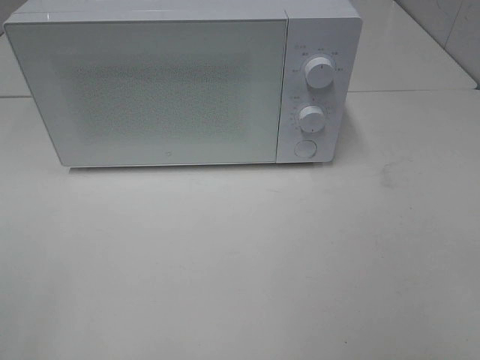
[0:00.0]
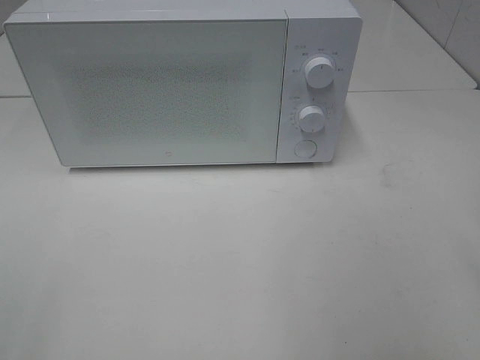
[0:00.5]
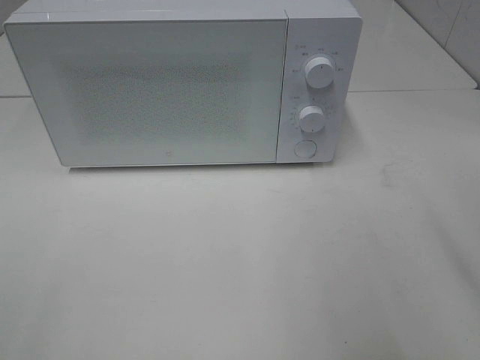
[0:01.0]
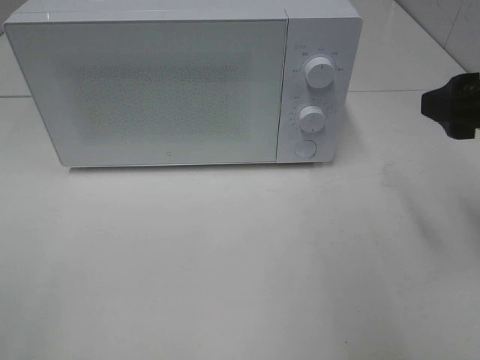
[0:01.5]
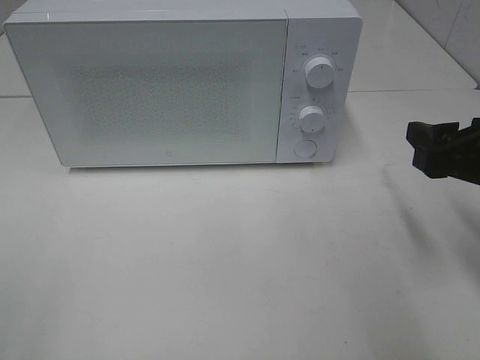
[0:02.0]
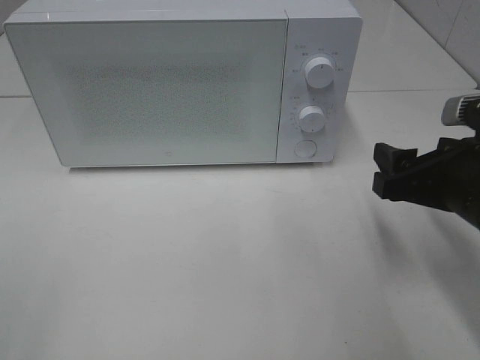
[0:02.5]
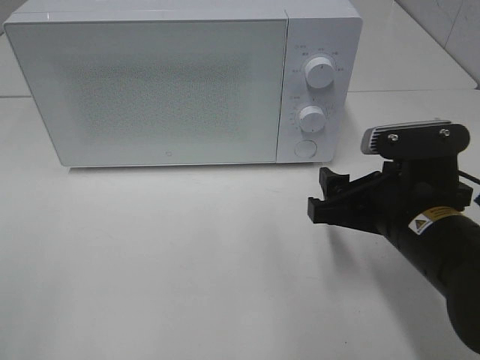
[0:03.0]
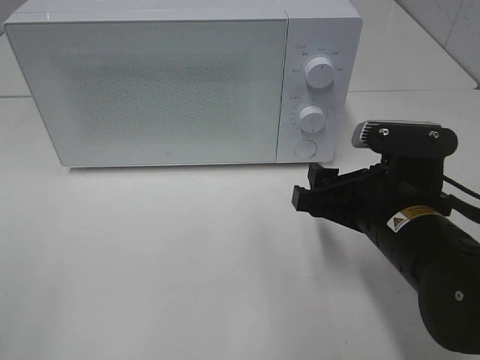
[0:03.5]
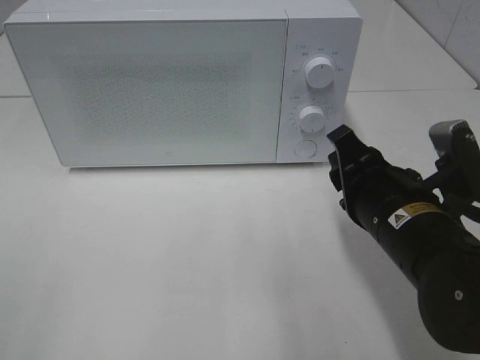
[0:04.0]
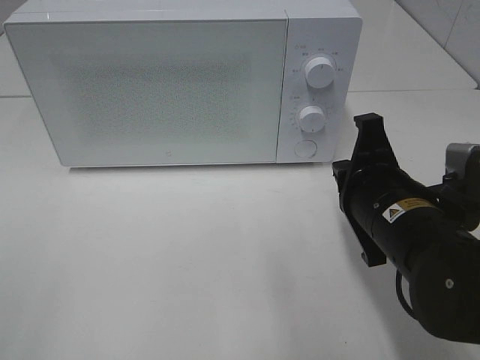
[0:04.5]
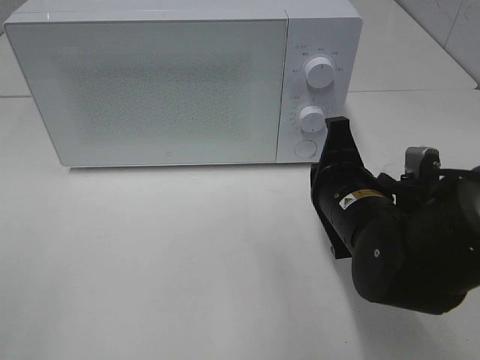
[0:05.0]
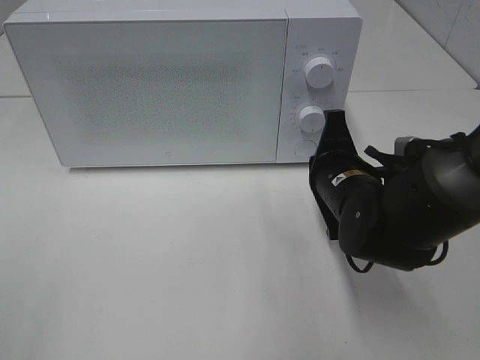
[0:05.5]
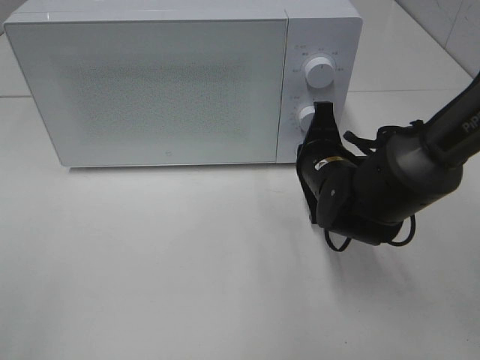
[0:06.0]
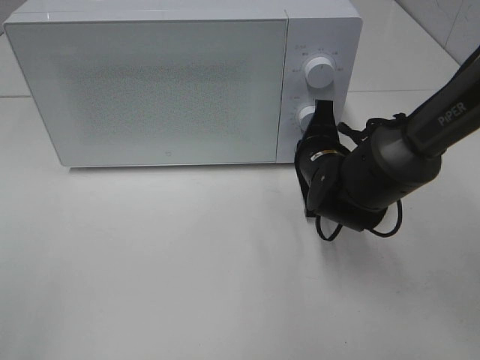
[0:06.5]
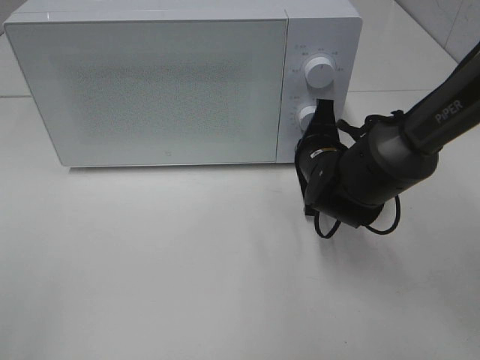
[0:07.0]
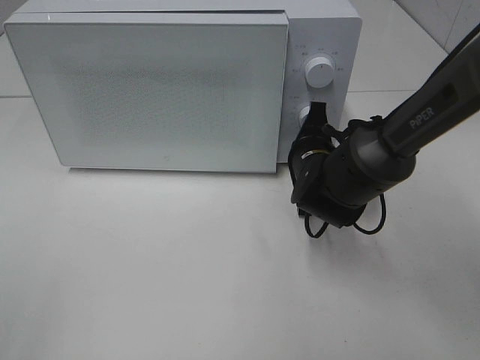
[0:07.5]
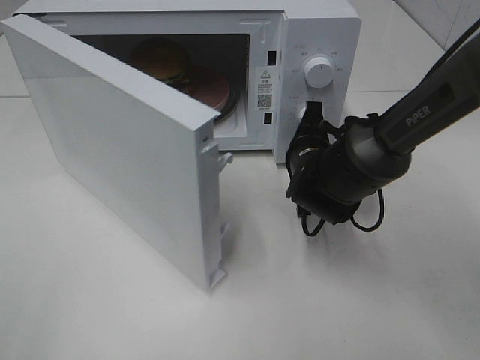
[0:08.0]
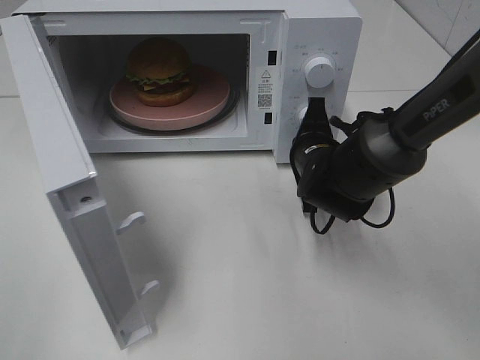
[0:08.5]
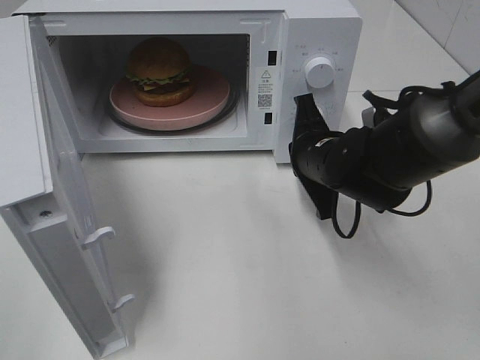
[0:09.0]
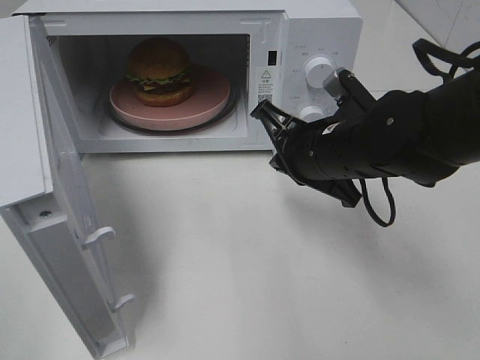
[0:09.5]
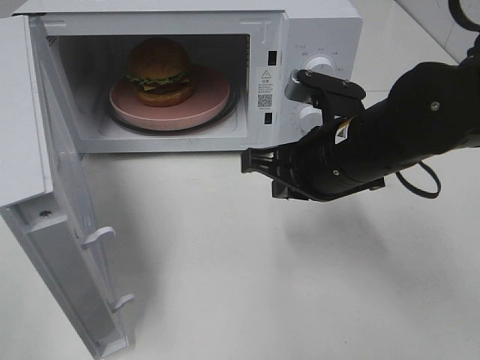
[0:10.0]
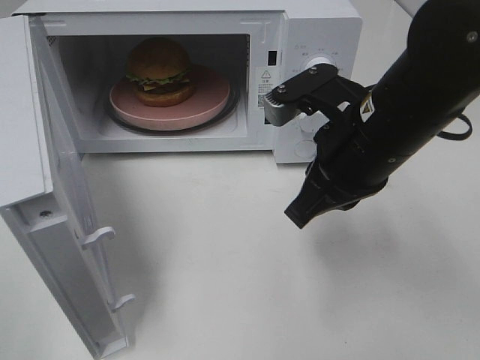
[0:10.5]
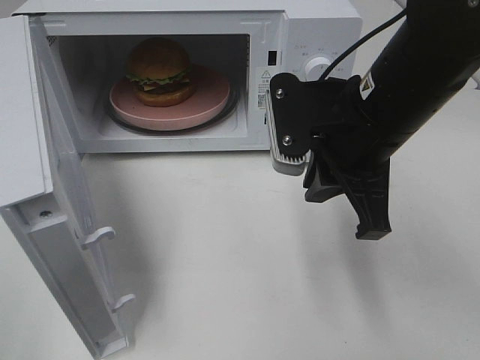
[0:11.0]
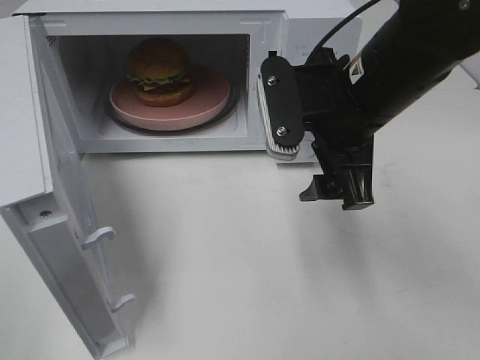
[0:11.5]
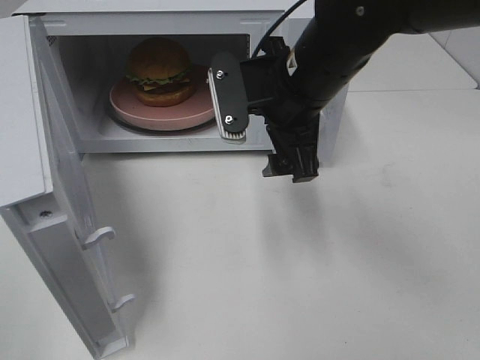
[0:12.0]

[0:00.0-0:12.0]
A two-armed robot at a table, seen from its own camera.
Task of the whole recording: Heat the burger.
Step, 0:00.0 to 0:08.5: Right hand: press the switch.
0:00.0 to 0:02.0: The right gripper travels forward and downward by some 25 cm.
0:02.0 to 0:04.0: The right gripper goes about 10 cm to the left, and closes up.
0:04.0 to 0:06.0: The right gripper moves forward and downward, about 10 cm, and closes its fingers.
0:08.0 to 0:10.0: The right gripper moves upward and backward, roughly 15 cm.
0:10.0 to 0:12.0: The right gripper moves forward, roughly 5 cm, and opens up.

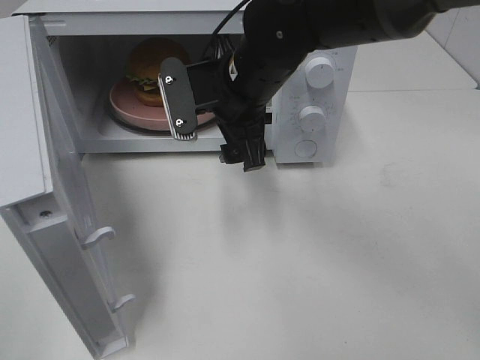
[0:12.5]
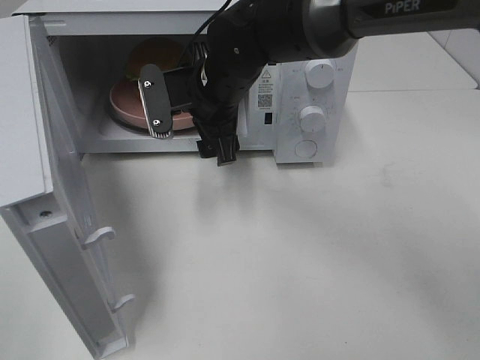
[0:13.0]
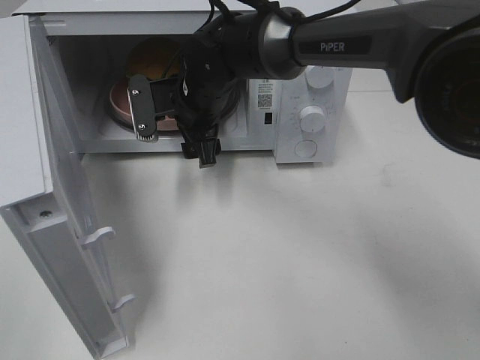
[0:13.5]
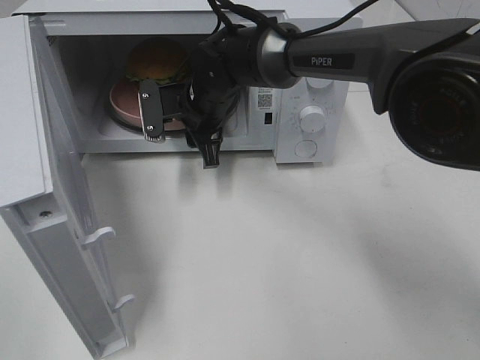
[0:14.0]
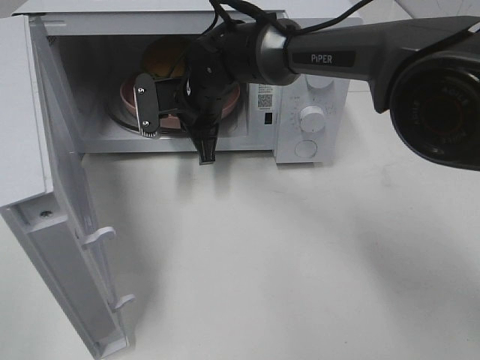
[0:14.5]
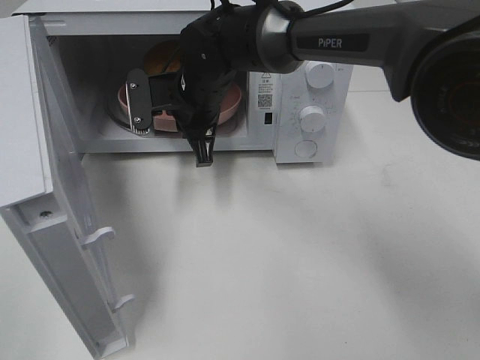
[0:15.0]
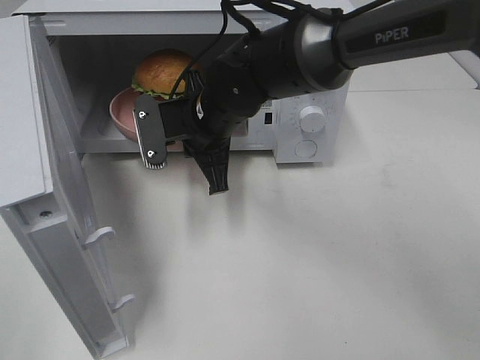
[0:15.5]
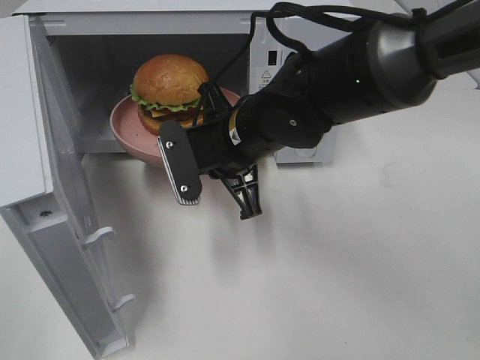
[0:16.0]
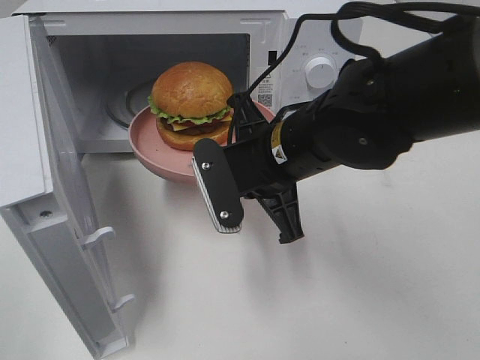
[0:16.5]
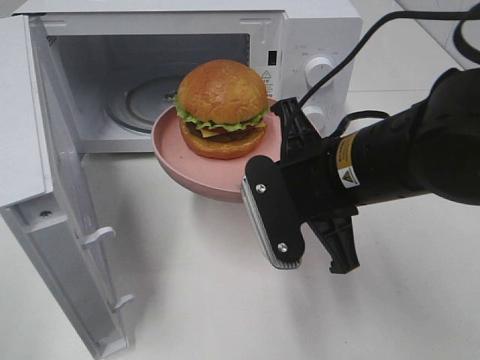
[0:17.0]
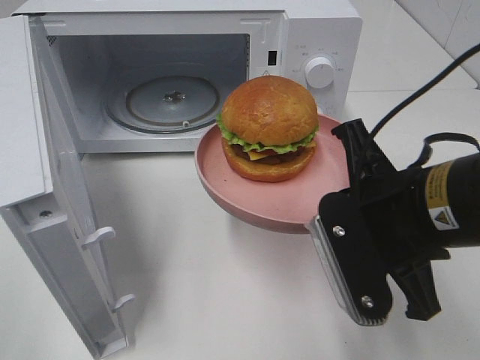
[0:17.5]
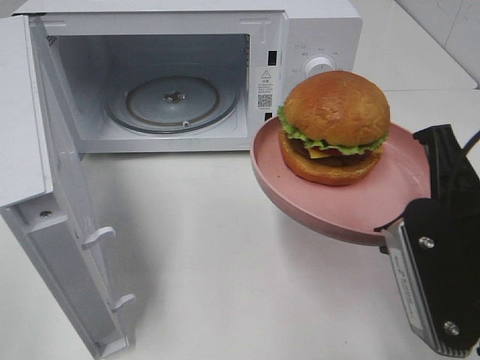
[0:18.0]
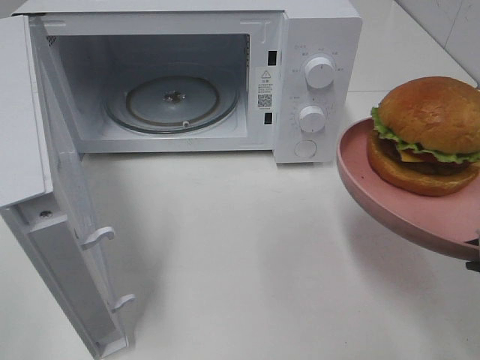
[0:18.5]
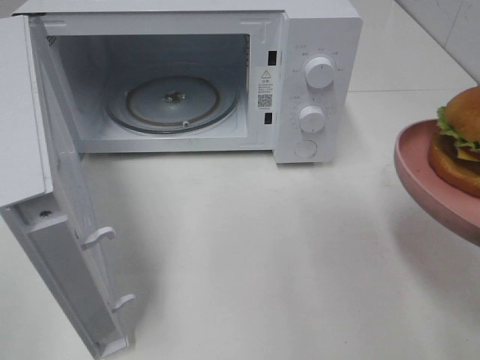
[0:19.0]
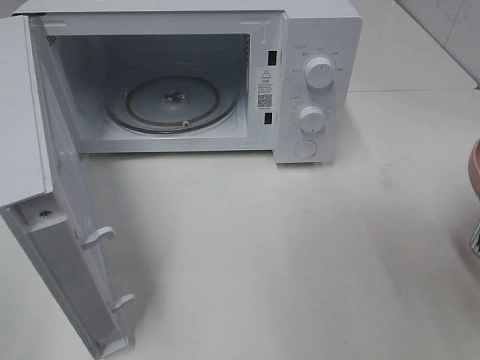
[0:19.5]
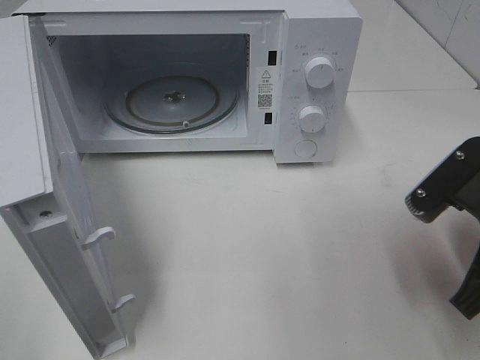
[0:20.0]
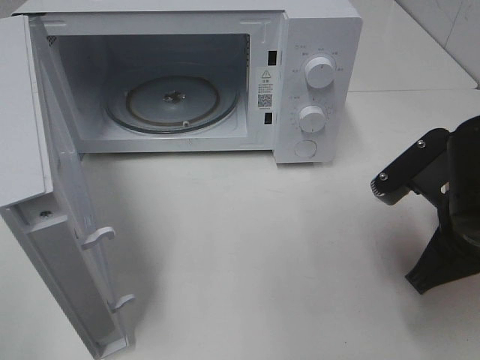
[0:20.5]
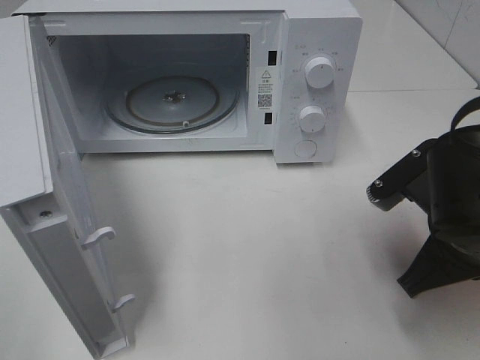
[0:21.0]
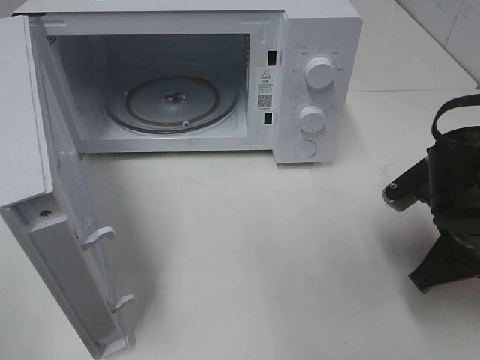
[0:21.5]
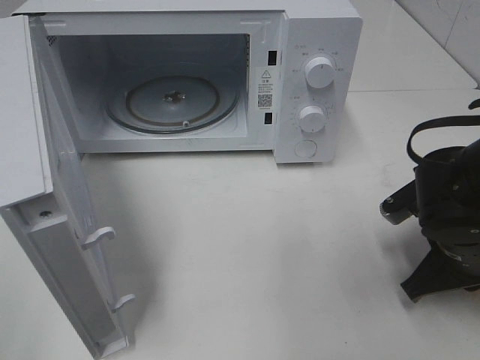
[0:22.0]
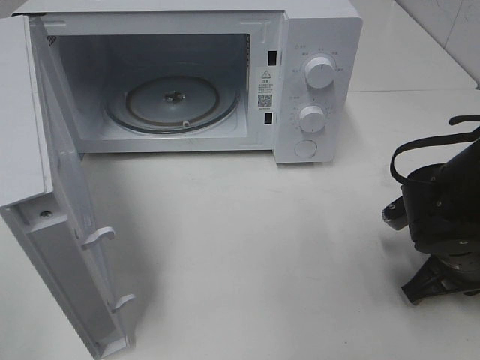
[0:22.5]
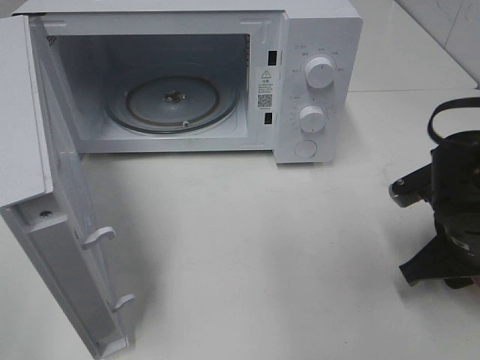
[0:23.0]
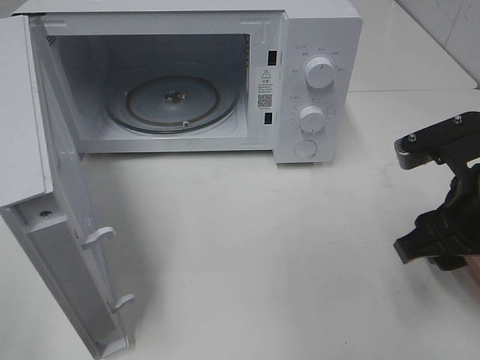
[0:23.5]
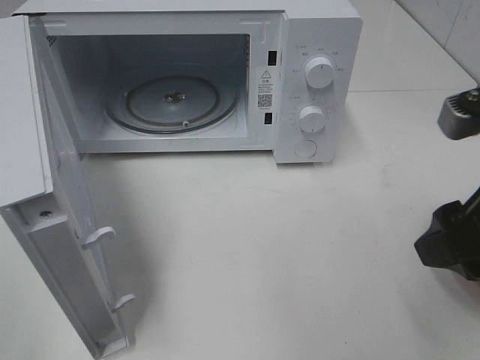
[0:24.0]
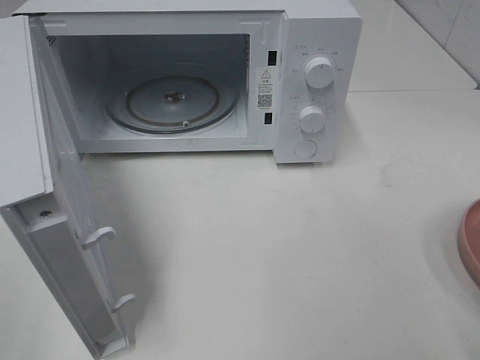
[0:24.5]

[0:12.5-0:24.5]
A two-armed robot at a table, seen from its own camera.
Task of the whole recording: Heat the burger.
Step, 0:14.5 to 0:22.5: Right hand: place the plate on the table.
0:12.5 to 0:14.5: The right gripper travels forward, downward and to the left by approximately 10 cm, and closes its fingers.
0:14.5 to 0:16.5: The right gripper heads backward and to the right, covering roughly 20 cm.
0:16.5 to 0:18.5: The right gripper heads to the right and backward, covering roughly 25 cm.
0:18.5 to 0:20.5: The right gripper moves forward and downward, roughly 10 cm.
0:20.5 to 0:22.5: The right gripper shifts approximately 10 cm downward.
0:22.5 to 0:24.5: The right gripper moves upward and backward, roughly 25 cm, and opens.

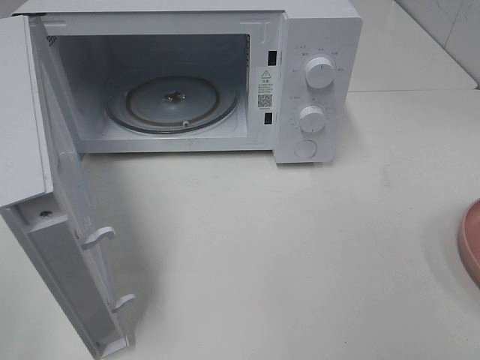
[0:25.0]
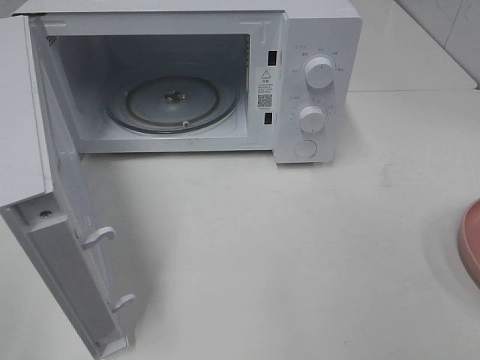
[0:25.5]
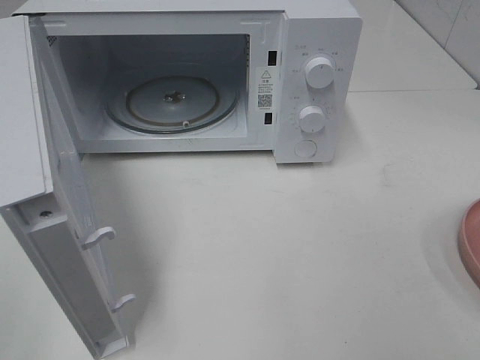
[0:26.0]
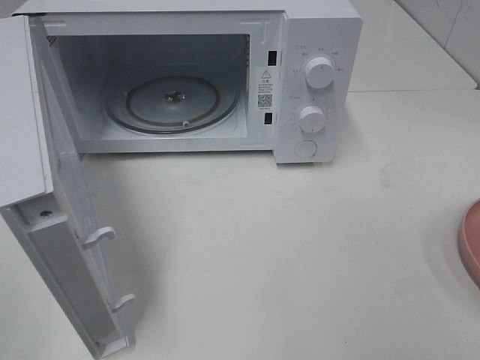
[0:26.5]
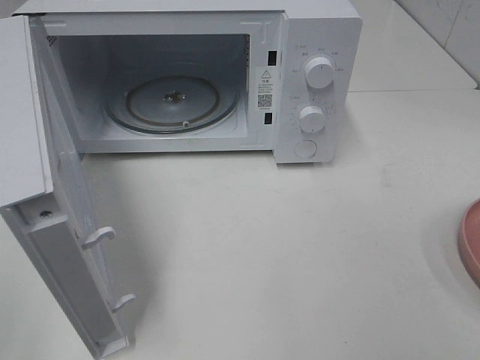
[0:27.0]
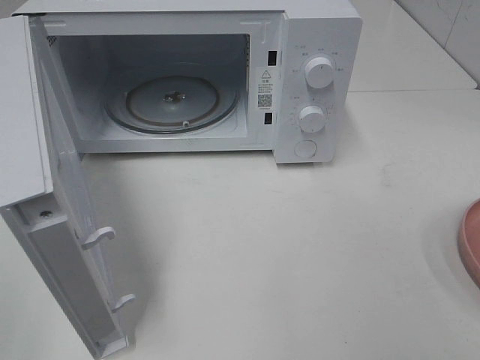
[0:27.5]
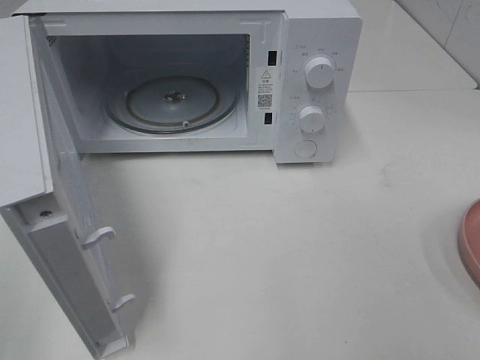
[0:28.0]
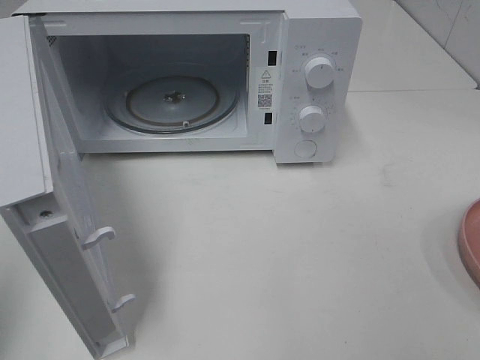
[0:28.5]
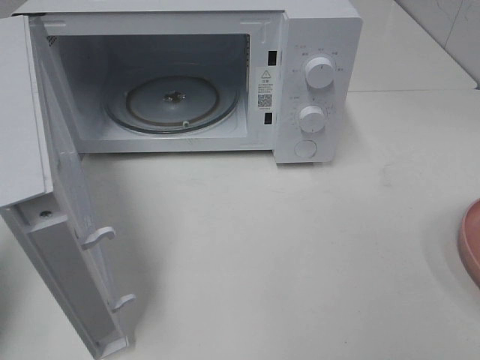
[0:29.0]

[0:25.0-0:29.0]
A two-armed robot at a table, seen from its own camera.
Task of the whole recording: Heat the burger.
0:27.0 to 0:29.0: The left gripper heads forward, covering approximately 15 cm, and closes up.
